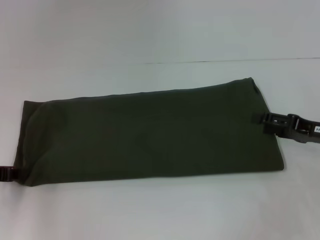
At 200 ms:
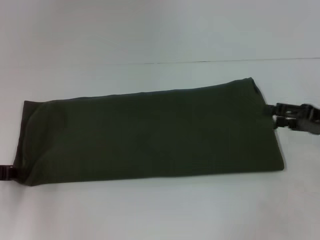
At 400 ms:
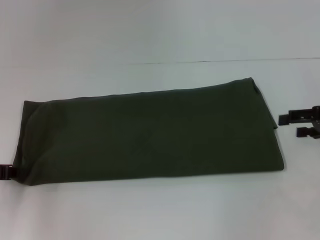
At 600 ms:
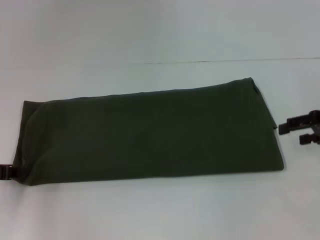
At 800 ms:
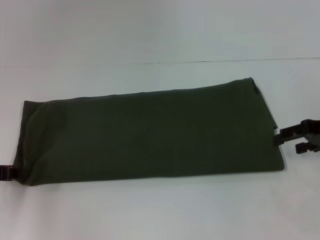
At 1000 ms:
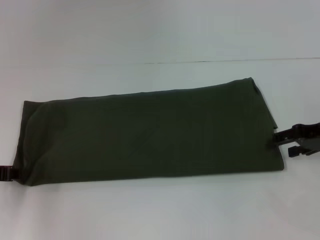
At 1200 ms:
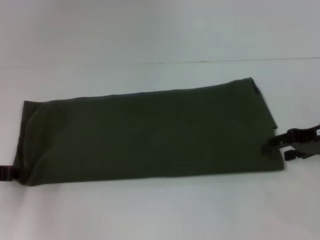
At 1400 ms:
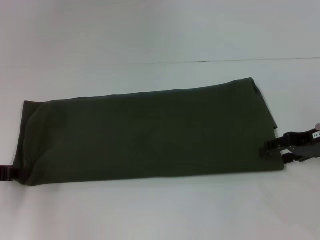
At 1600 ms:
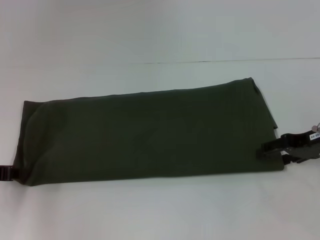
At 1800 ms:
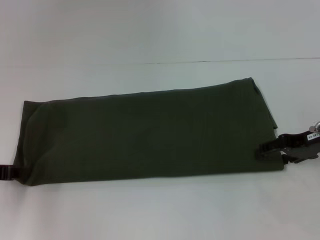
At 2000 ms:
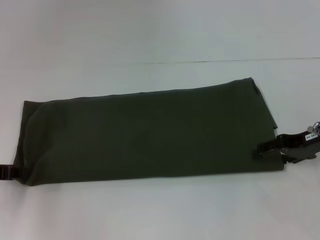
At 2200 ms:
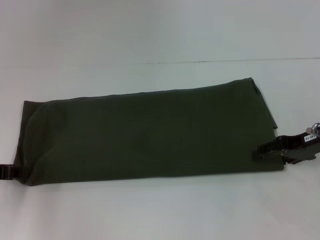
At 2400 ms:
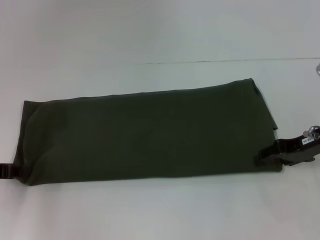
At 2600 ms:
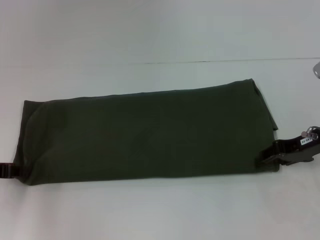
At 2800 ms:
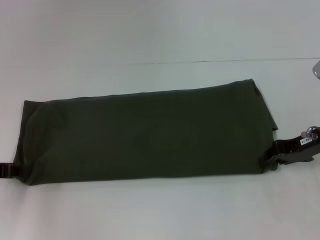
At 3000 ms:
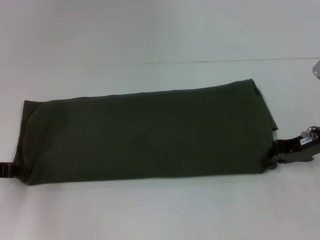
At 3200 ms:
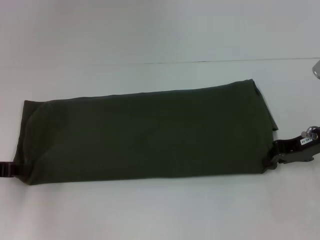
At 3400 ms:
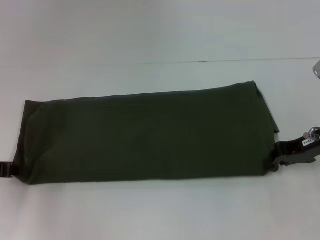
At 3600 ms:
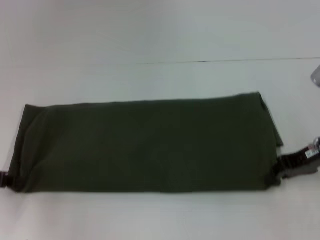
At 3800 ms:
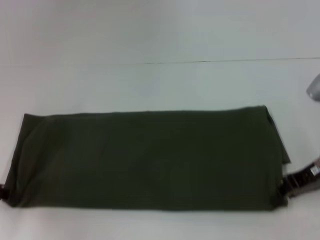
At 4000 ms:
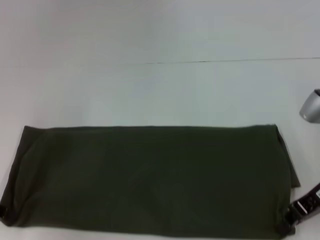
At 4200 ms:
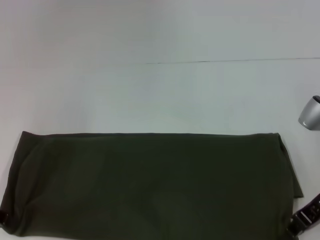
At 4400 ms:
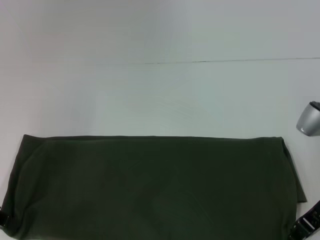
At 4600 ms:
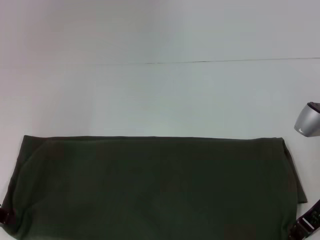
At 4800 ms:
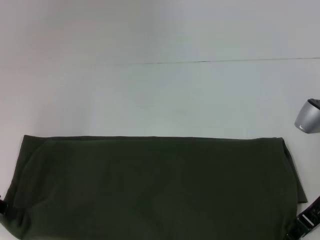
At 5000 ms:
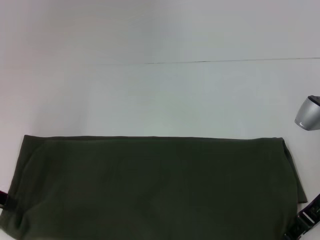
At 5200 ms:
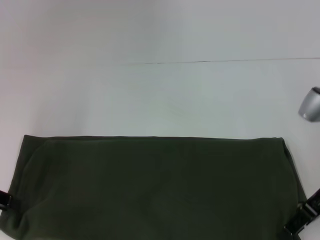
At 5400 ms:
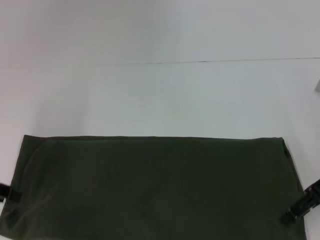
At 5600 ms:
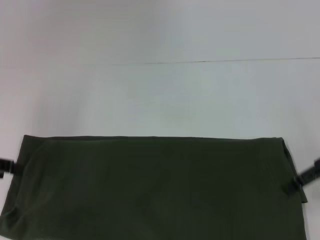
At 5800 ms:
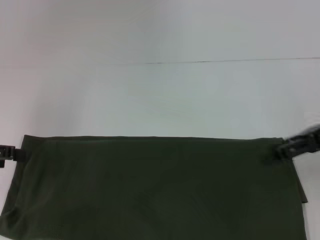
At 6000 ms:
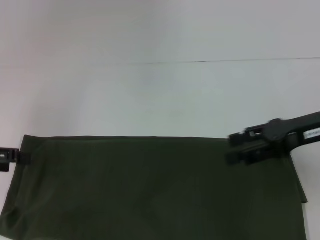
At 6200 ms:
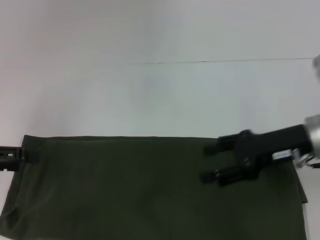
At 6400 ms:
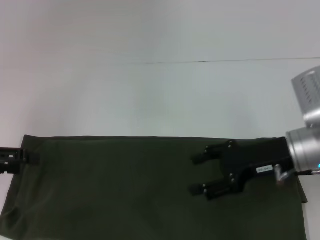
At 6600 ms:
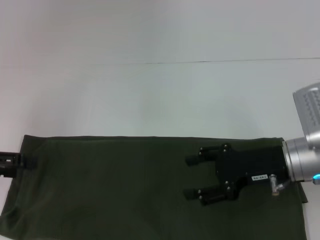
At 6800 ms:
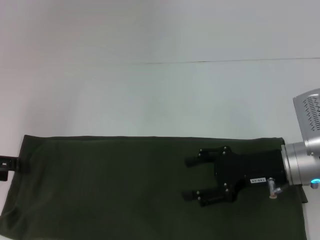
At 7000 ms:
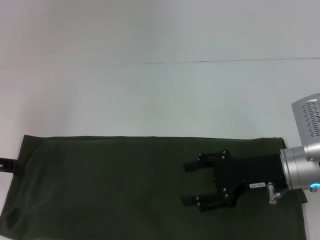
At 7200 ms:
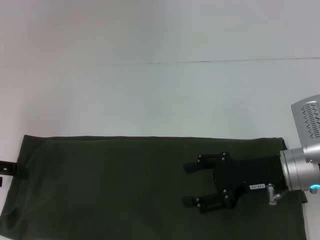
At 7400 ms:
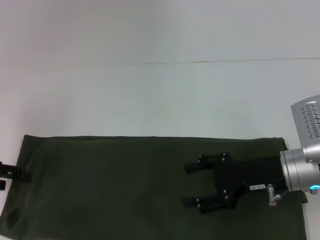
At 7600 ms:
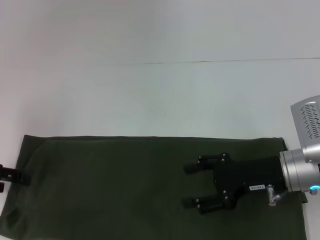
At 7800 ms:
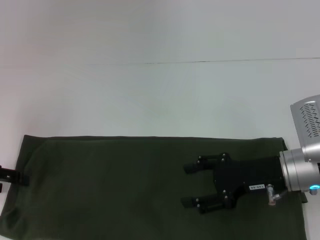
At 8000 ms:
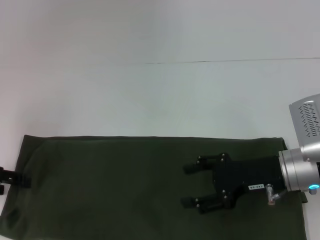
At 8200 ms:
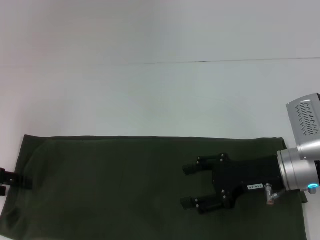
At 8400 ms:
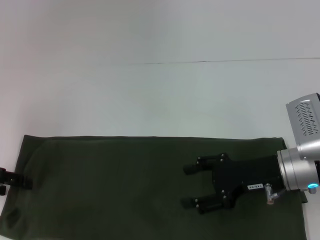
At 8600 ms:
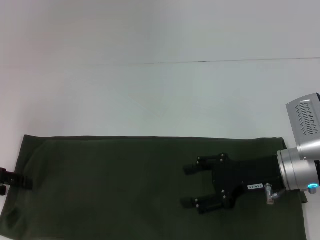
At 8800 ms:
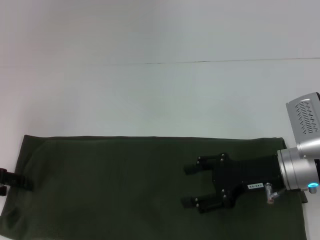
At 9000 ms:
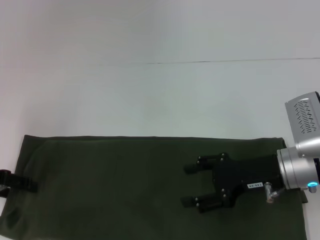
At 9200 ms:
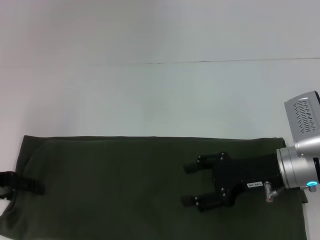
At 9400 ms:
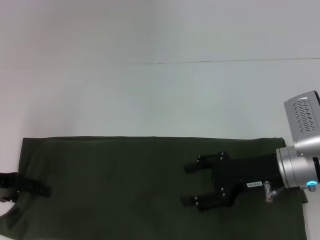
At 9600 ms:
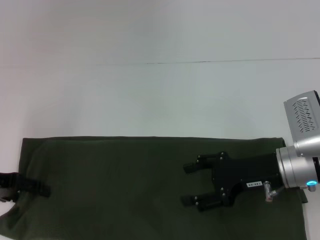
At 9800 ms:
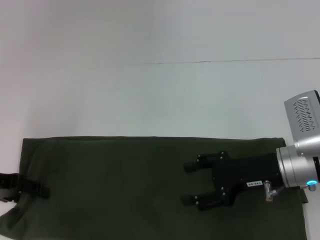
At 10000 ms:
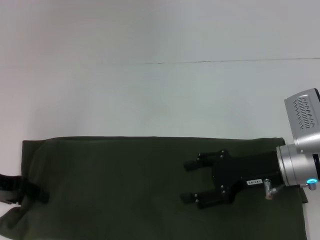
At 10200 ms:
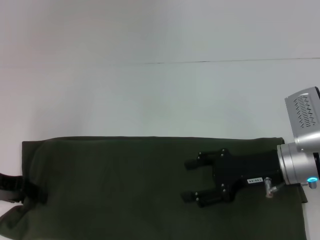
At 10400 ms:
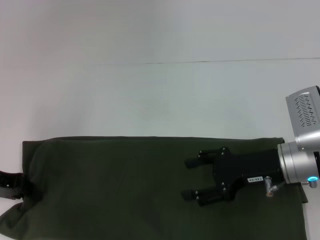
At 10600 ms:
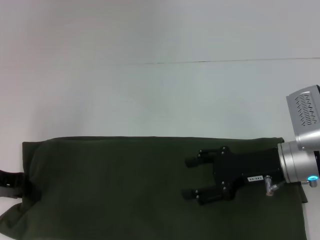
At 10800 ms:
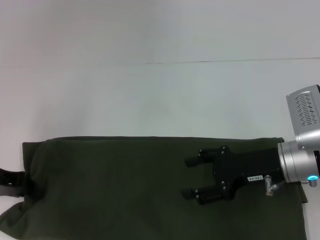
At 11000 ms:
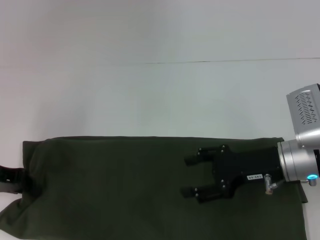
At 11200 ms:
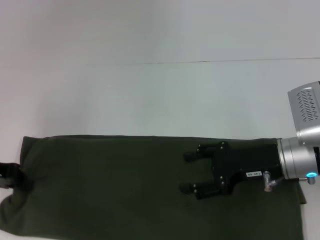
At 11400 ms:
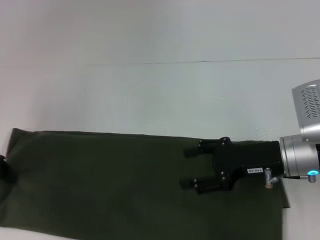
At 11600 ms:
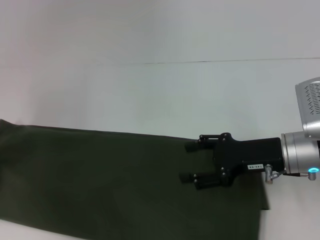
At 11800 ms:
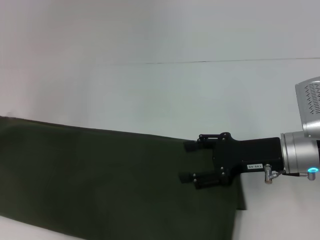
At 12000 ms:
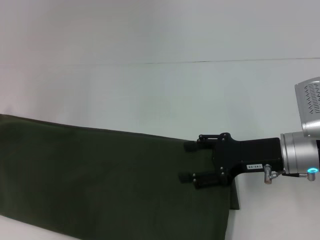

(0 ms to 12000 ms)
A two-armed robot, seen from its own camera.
0 ms - 1600 ms: The right gripper changes place by approximately 5 cm.
1600 ms - 3000 ms: The right gripper closes up.
3000 ms - 4400 ms: The right gripper shifts about 5 cm backward.
4400 ms - 6000 ms: The right gripper shifts some 5 cm upward, and opens, while the left gripper opens up.
6000 ms - 7600 ms: The right gripper shifts approximately 10 cm downward and to the left.
7600 ms - 9000 ms: The two grippers keep their place.
9000 ms - 10400 ms: The left gripper closes up.
10400 ms - 12000 ms: The left gripper travels upward and to the left by some 10 cm.

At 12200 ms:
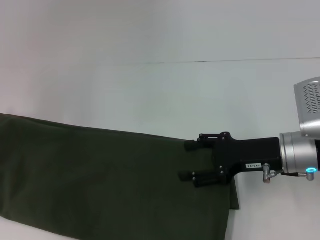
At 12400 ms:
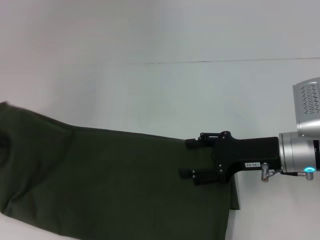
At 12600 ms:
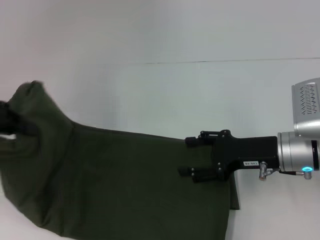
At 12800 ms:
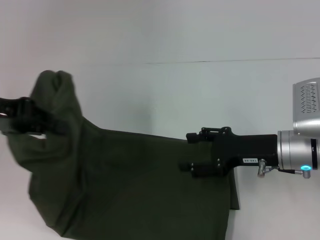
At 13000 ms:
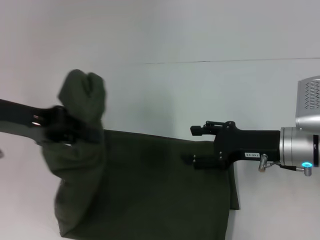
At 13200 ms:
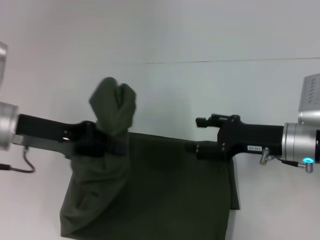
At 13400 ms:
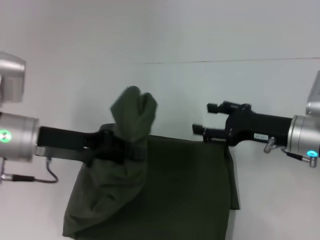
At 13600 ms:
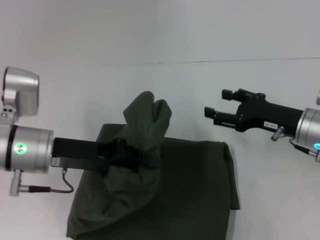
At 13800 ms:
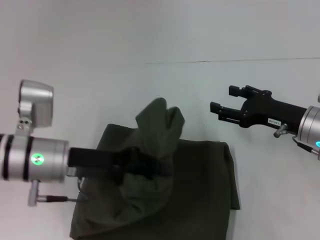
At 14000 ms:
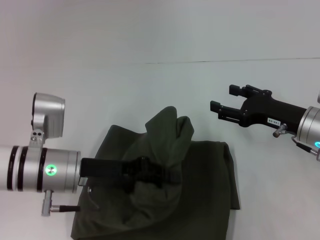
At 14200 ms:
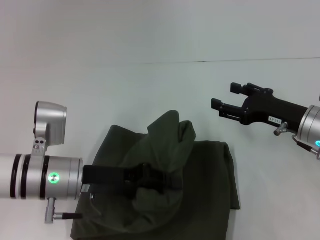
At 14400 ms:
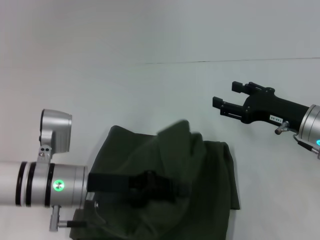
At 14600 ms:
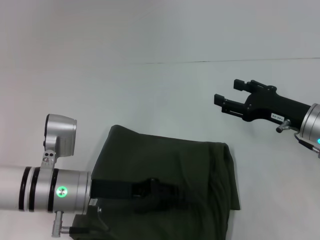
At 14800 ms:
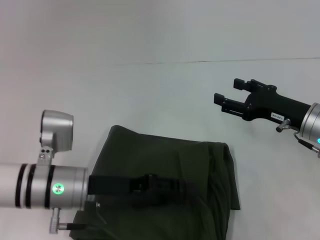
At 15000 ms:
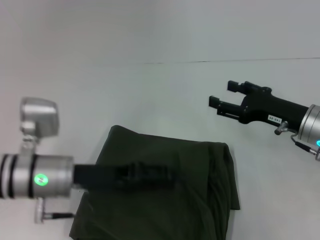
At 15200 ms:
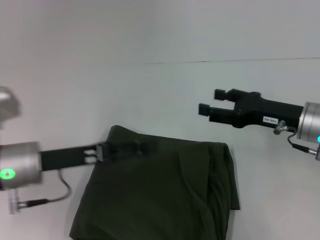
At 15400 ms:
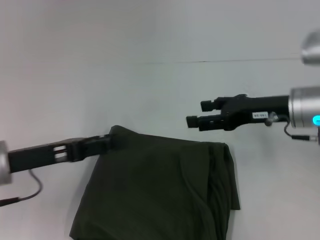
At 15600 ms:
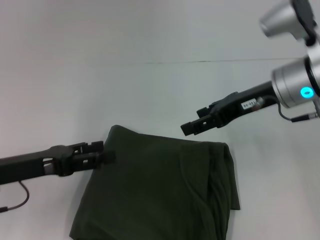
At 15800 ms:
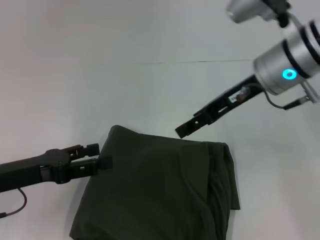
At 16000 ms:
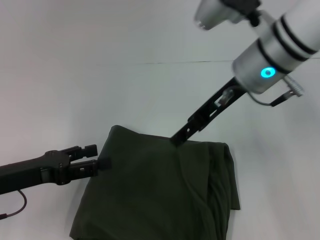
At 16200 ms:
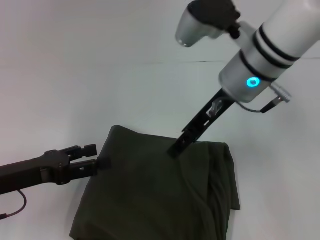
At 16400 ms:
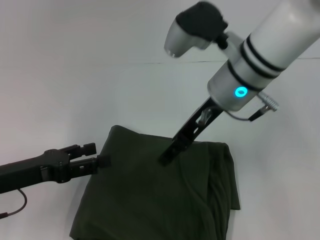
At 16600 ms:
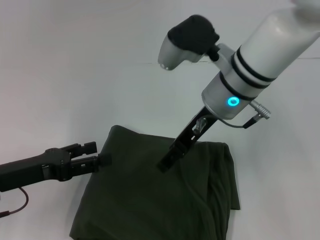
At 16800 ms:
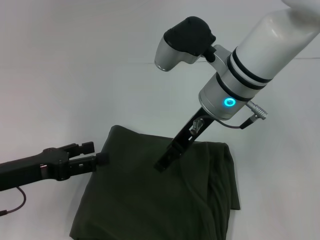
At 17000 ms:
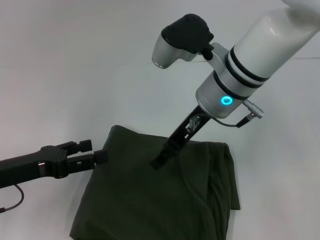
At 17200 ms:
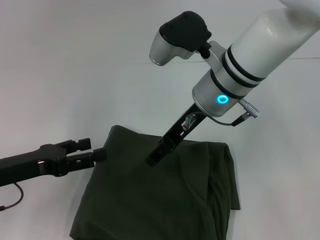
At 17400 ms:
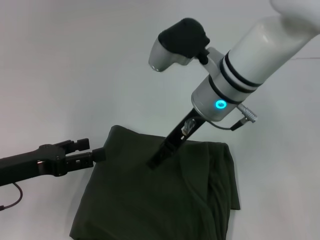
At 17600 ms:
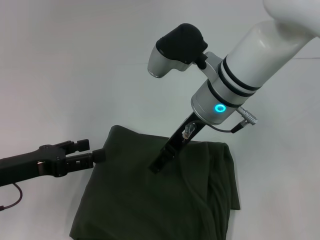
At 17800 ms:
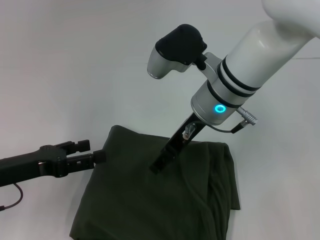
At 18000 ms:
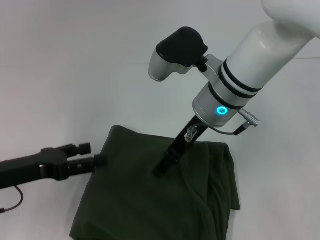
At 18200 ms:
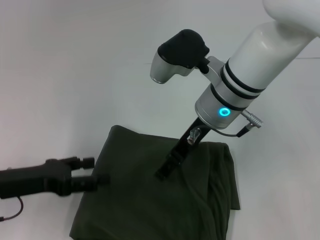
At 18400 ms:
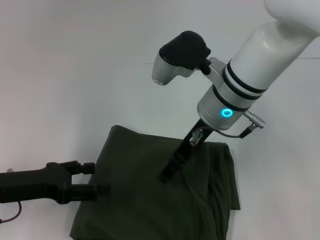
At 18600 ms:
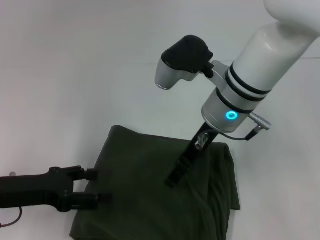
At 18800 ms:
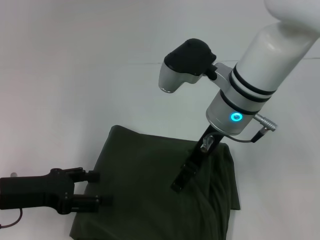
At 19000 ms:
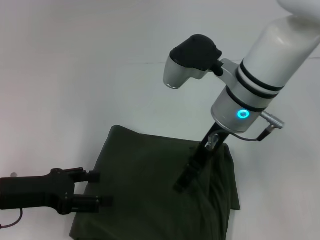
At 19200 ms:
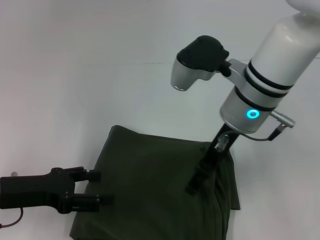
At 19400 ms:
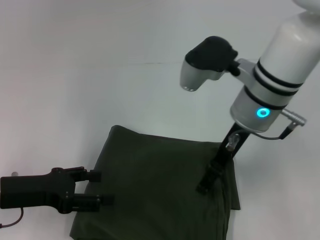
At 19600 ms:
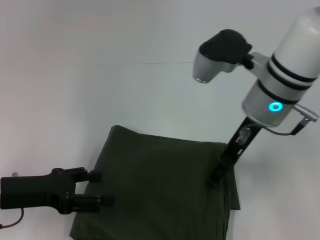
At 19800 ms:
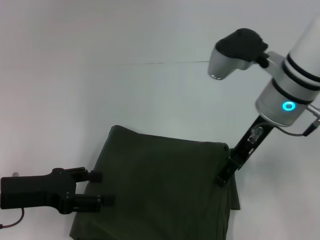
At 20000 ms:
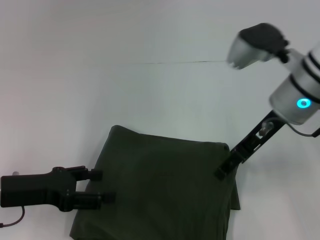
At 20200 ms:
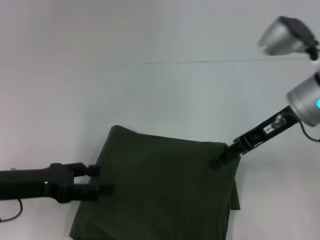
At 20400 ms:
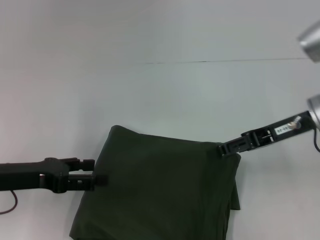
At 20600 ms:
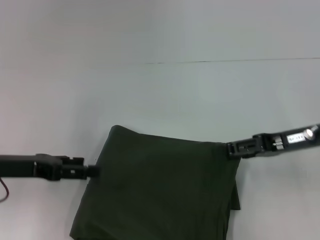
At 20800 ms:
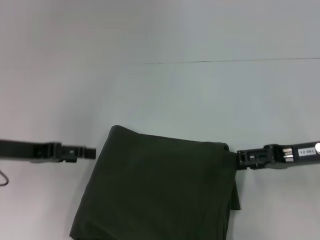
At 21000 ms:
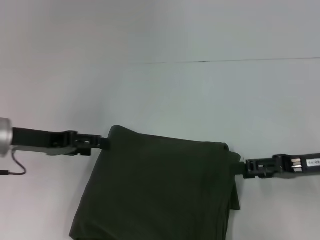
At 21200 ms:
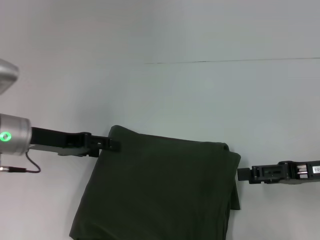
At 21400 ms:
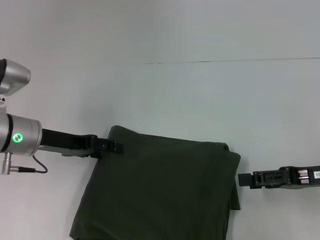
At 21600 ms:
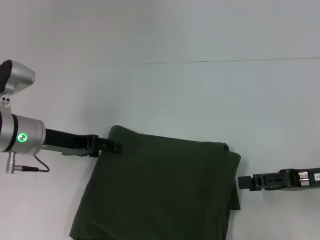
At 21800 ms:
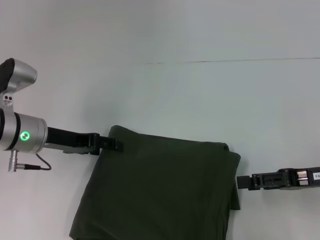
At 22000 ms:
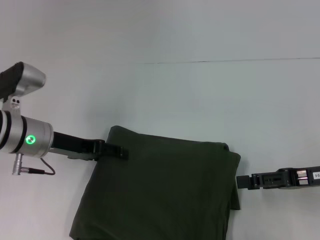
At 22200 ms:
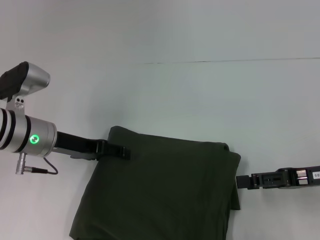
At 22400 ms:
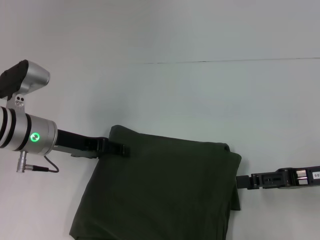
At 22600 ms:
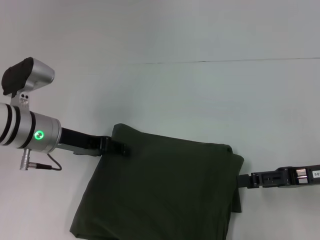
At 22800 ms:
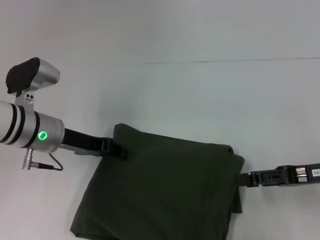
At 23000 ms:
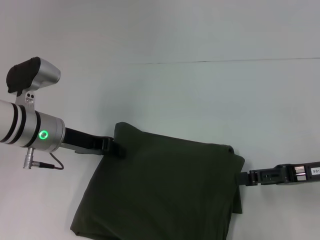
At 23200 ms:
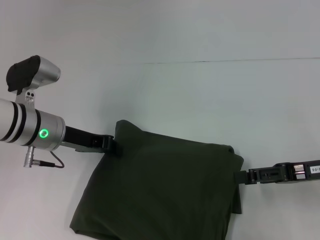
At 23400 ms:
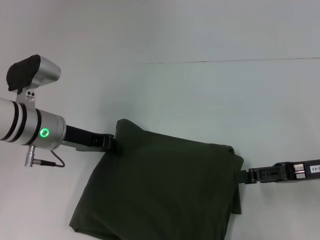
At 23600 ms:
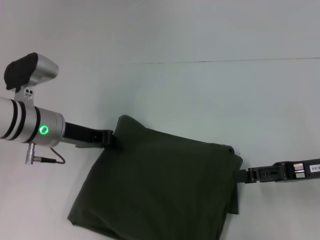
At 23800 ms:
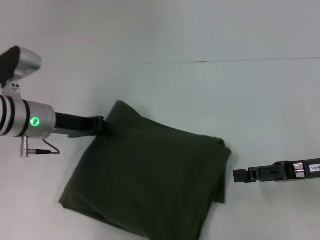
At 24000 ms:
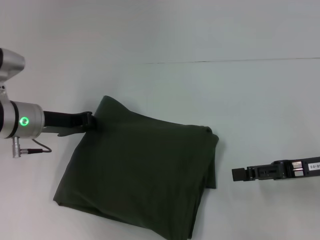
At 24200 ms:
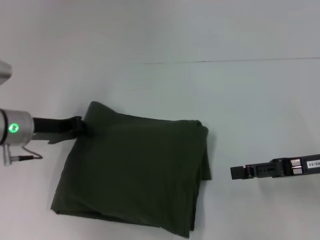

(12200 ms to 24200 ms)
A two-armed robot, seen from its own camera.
Step, 12200 ms - 15000 ms: Fold the clothes with your left hand.
12200 ms - 13800 ms: The left gripper goes some 20 cm to the right.
13800 ms - 15200 ms: The left gripper opens up.
15200 ms - 16600 ms: The left gripper travels to the left by about 5 cm. The right gripper shifts roughly 20 cm to the left and upward.
16600 ms - 18200 ms: There are only small adjustments of the grippers.
18200 ms - 19800 ms: The right gripper shifts about 5 cm to the right.
19800 ms - 21200 ms: The left gripper moves forward, roughly 10 cm; the right gripper moves to the right, backward and downward, roughly 20 cm.
21200 ms - 22600 ms: The grippers stay close to where they were, moving slightly.
22600 ms - 24200 ms: The left gripper closes its fingers.
